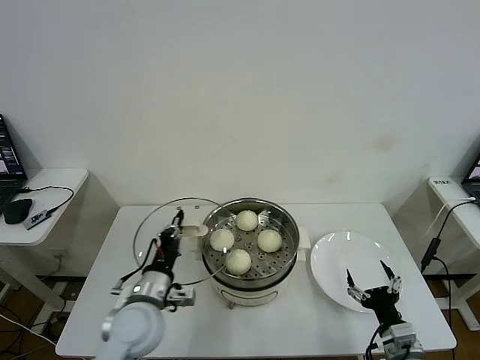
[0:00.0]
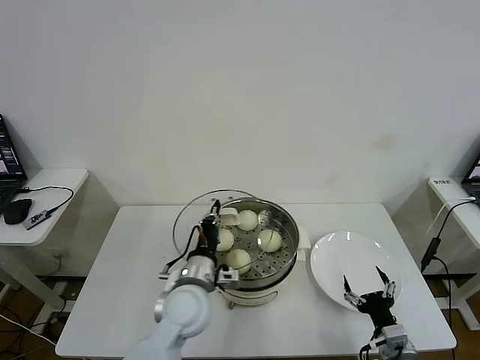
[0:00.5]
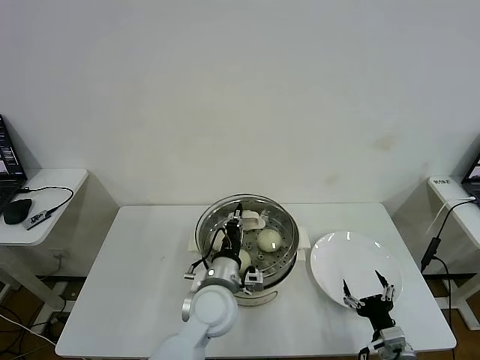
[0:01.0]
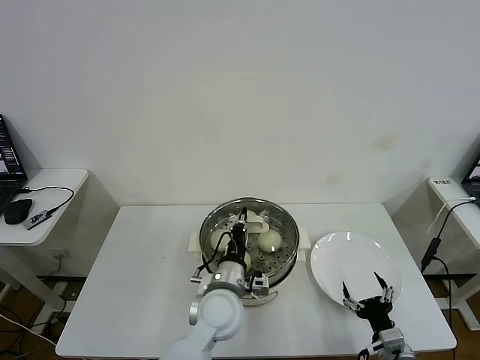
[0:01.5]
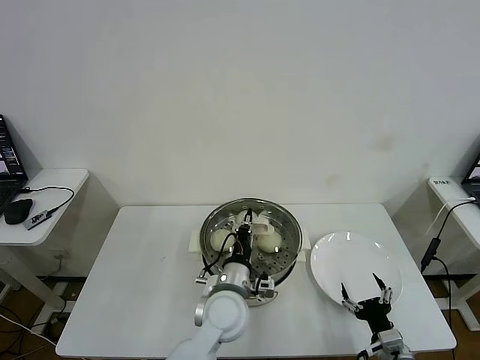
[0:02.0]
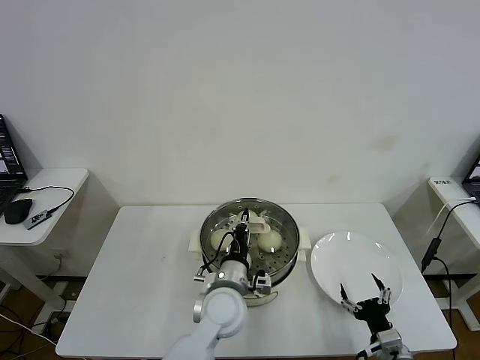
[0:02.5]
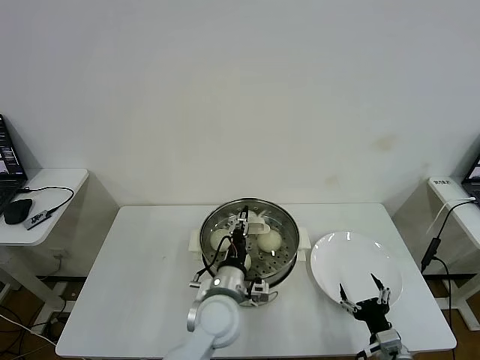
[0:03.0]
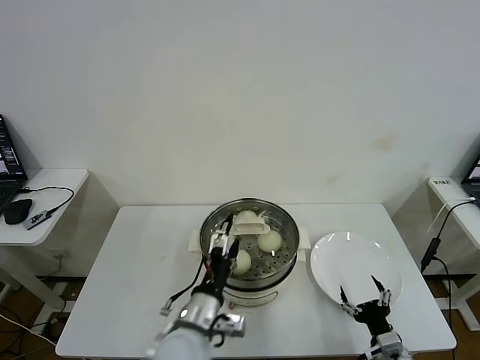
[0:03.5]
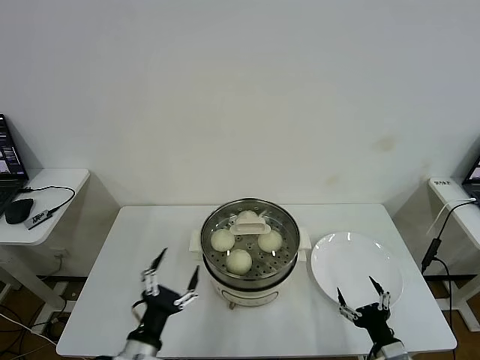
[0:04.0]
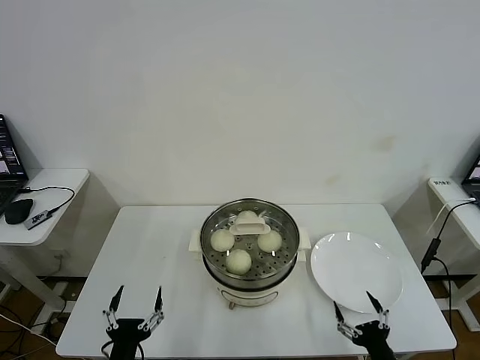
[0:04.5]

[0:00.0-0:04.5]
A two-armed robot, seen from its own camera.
Task of the whole recording: take steamed baozi put them in steamer then cover it.
Step, 0:00.0 to 0:03.0: Place the pot lid on the steamer with left gripper.
0:00.0 to 0:02.0: The left gripper shifts some 15 cm to the right.
0:02.0 to 0:04.5: The right gripper heads backward, covering about 5 cm; the left gripper shifts some 30 cm to the left and backward, and opens its fingers.
